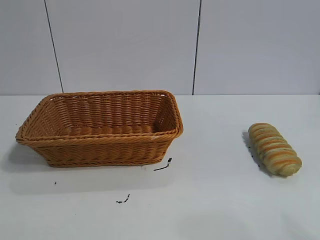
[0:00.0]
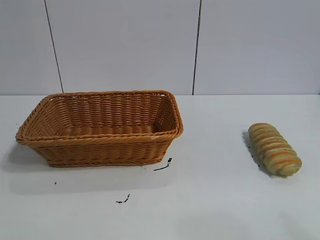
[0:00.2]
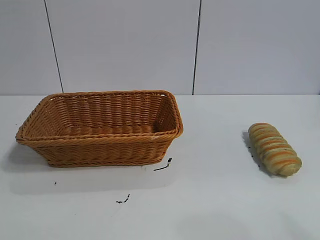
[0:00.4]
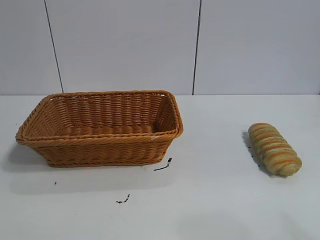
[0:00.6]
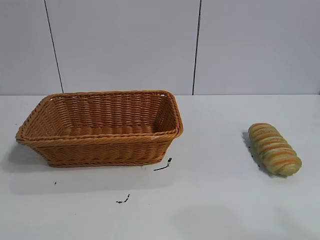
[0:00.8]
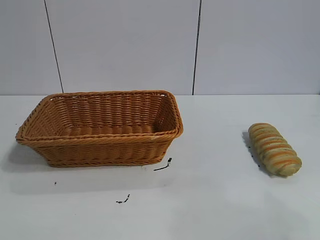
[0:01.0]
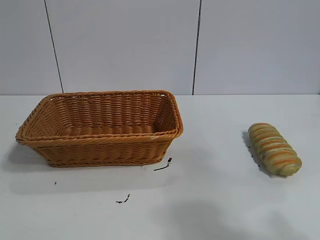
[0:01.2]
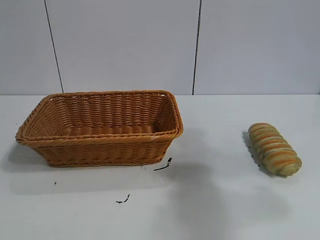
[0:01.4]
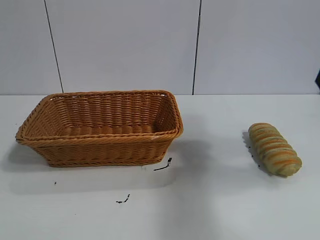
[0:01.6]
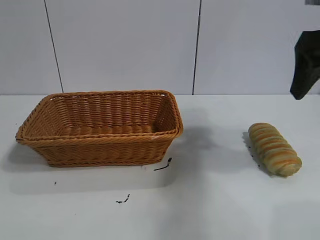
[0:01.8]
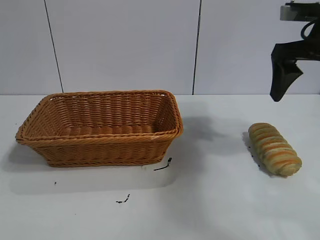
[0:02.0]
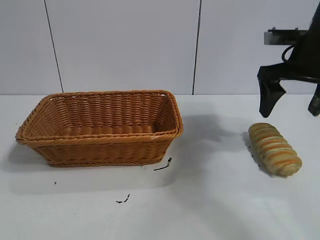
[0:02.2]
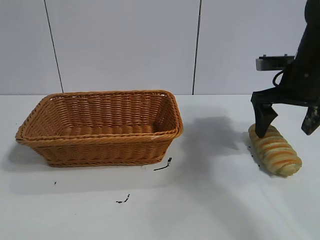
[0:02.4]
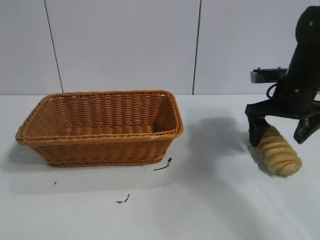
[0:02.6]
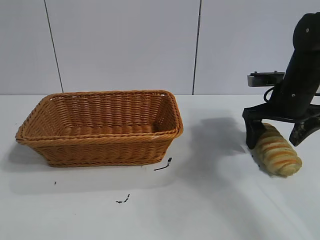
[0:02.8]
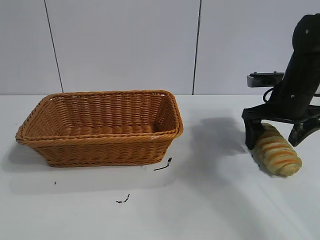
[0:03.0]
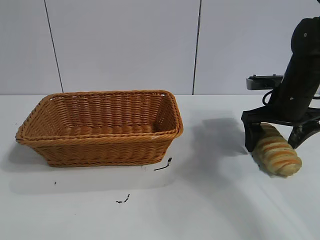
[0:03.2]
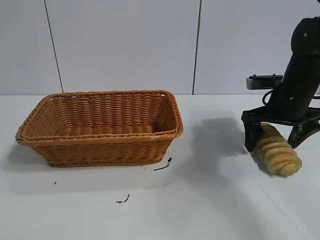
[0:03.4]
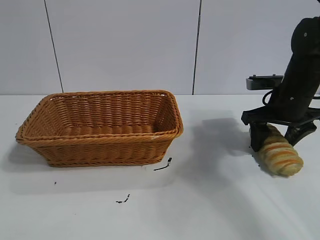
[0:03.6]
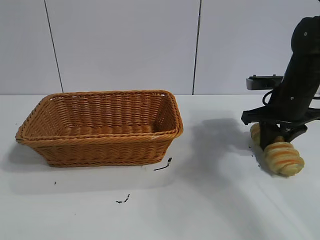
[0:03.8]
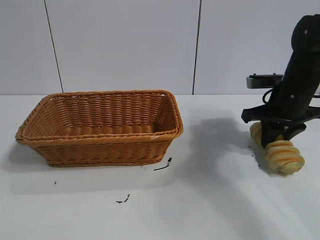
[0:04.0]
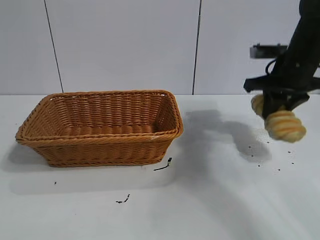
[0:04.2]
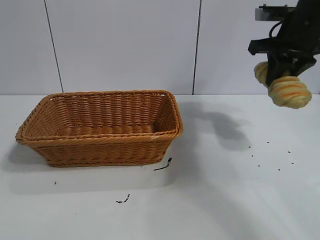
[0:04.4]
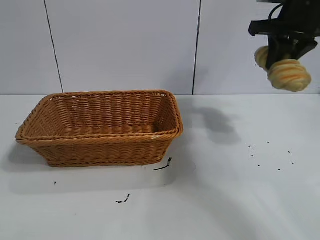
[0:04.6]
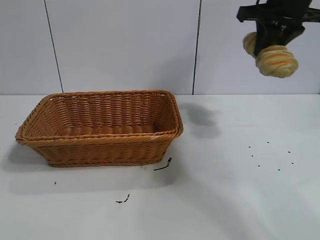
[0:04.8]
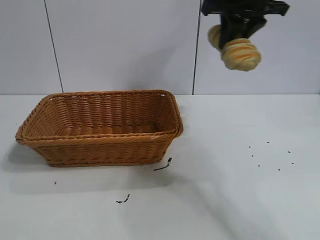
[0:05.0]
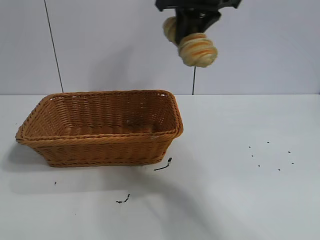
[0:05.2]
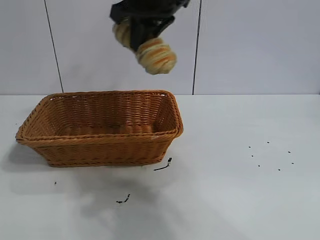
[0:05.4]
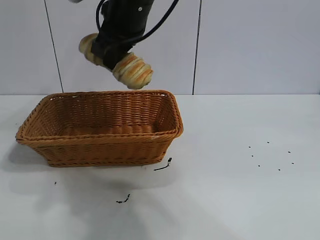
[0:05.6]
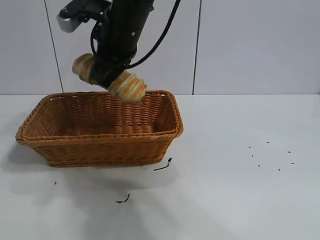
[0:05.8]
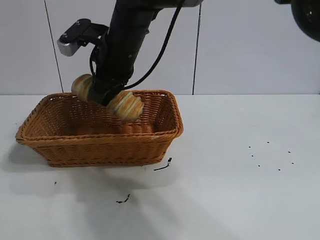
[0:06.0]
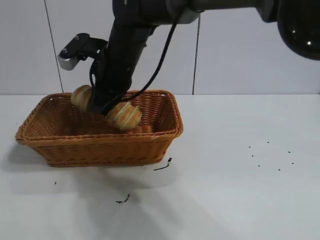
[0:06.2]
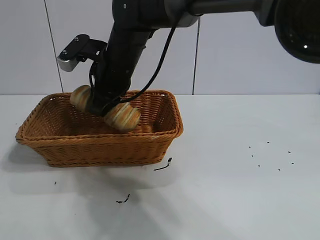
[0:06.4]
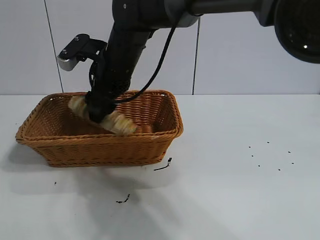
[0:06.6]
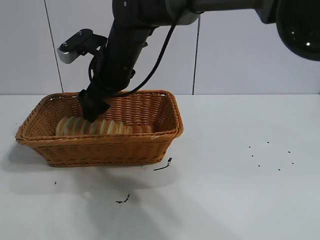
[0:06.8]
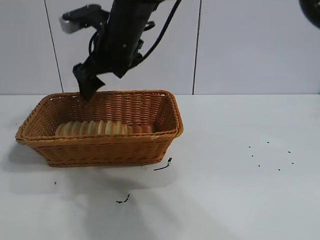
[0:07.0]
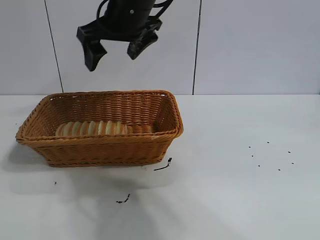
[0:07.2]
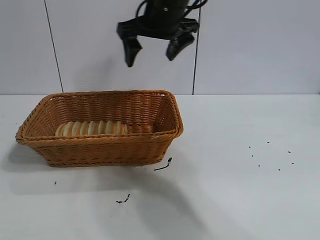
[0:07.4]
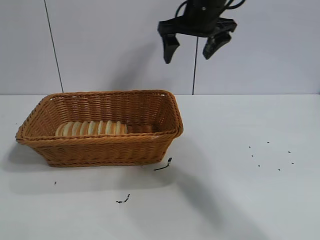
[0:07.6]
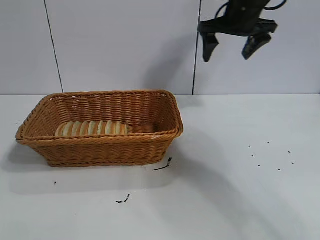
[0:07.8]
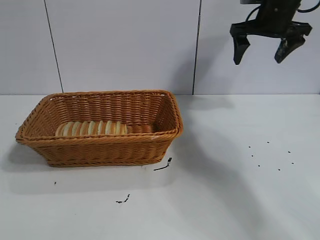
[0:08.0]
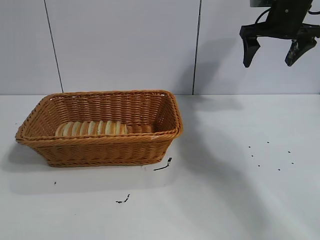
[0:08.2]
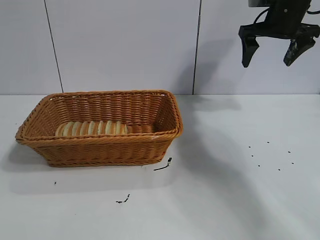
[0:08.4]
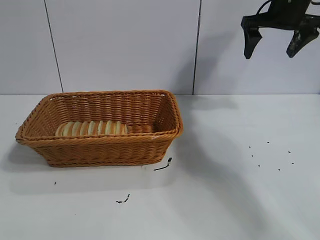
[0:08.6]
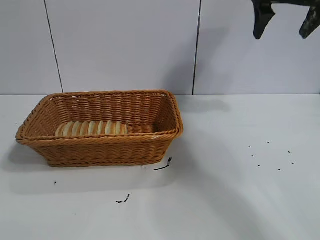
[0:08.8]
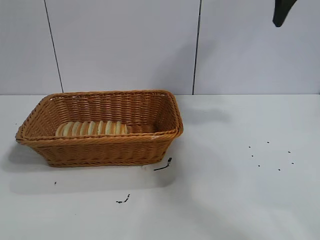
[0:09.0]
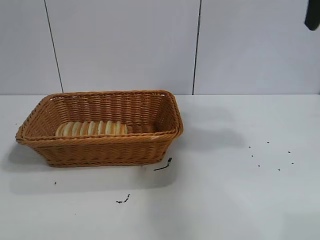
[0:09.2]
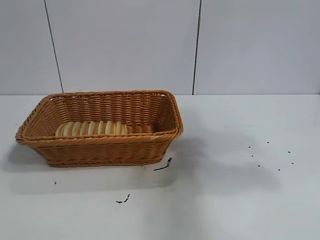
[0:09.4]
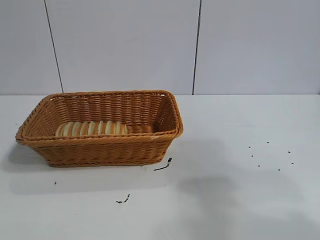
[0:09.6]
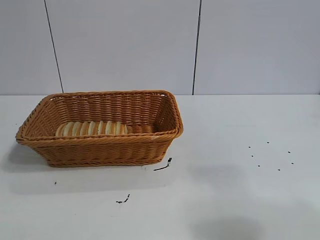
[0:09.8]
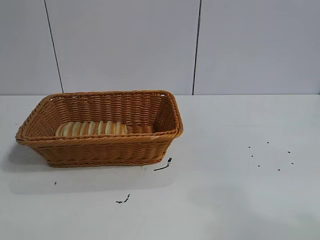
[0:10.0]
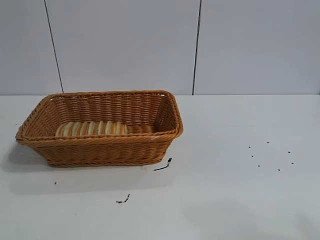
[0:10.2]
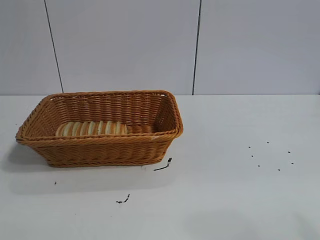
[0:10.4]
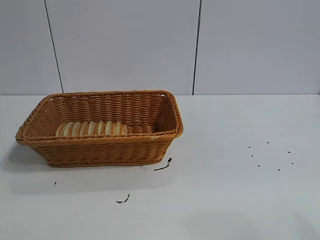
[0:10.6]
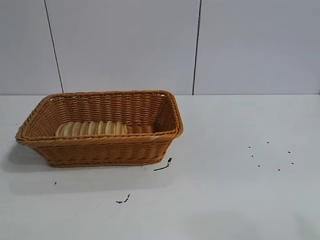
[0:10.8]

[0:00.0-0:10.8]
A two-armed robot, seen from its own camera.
Task of the whole recording: pick up the long bread and put it into the basket.
Step, 0:01.6 to 0:04.0: Grasp the long bread with right gripper.
Step, 0:04.4 to 0:07.0: Place the long bread in the basket with right gripper.
